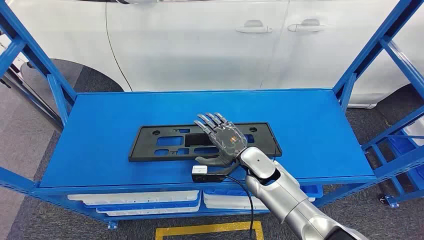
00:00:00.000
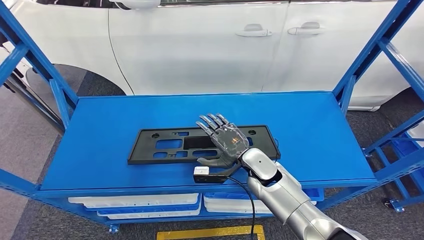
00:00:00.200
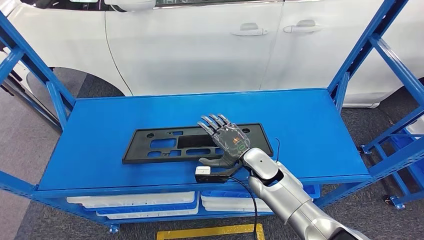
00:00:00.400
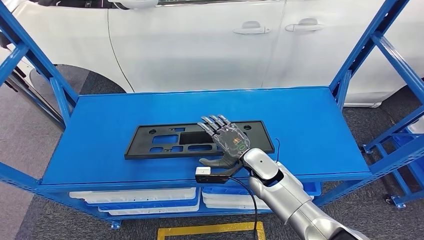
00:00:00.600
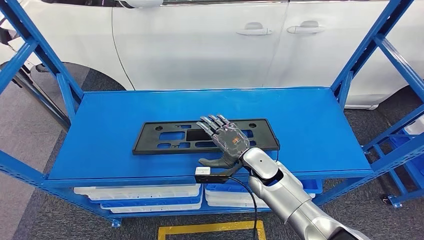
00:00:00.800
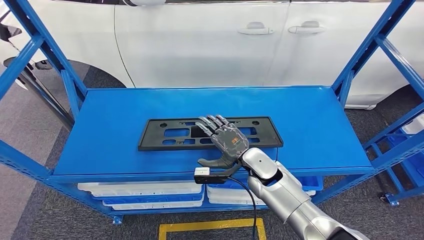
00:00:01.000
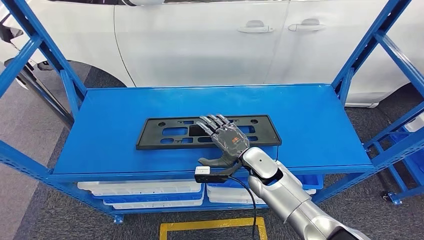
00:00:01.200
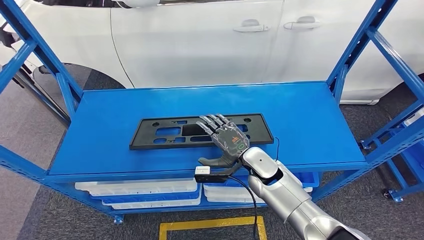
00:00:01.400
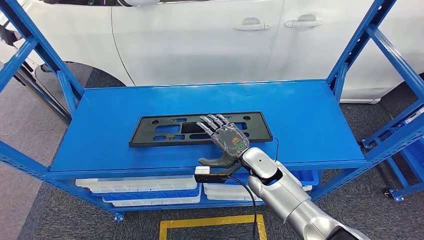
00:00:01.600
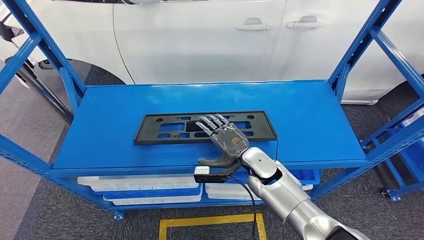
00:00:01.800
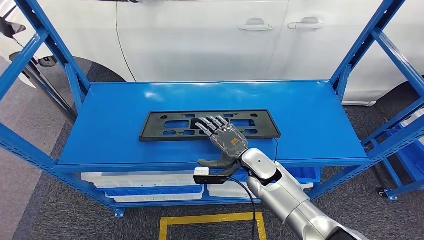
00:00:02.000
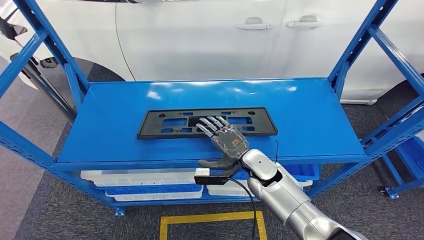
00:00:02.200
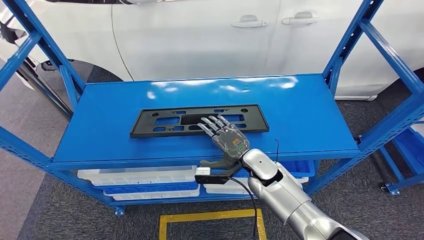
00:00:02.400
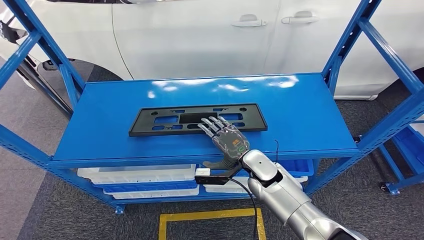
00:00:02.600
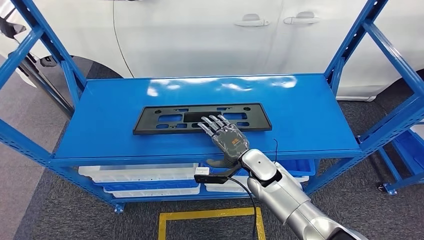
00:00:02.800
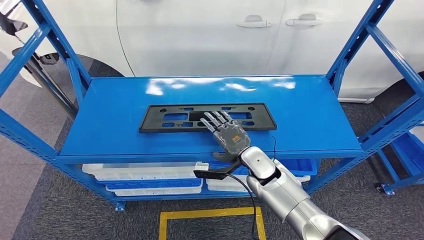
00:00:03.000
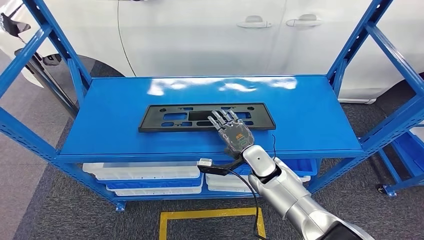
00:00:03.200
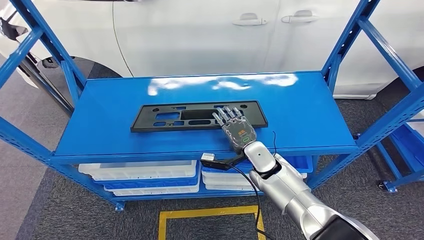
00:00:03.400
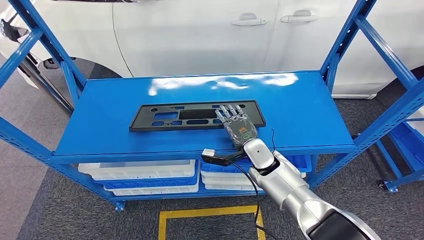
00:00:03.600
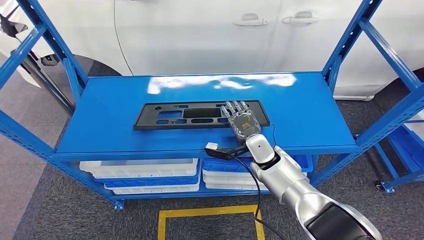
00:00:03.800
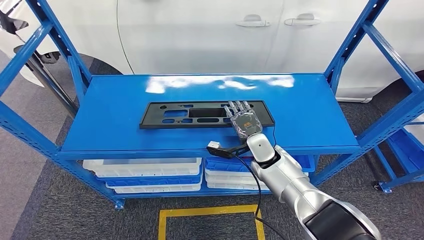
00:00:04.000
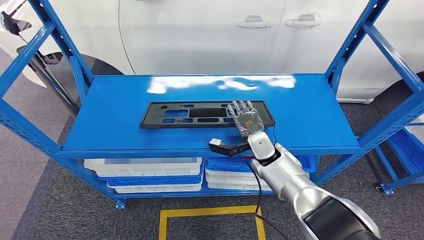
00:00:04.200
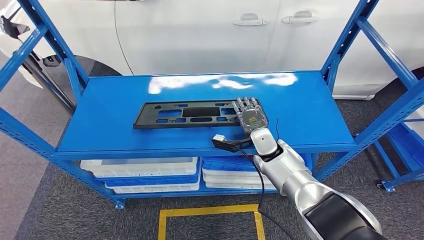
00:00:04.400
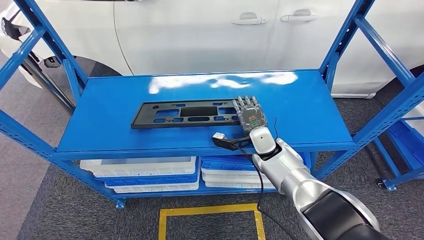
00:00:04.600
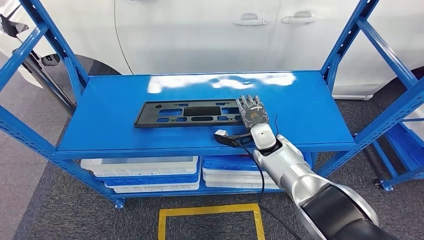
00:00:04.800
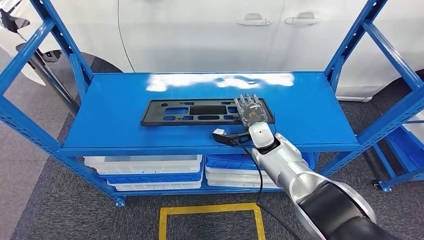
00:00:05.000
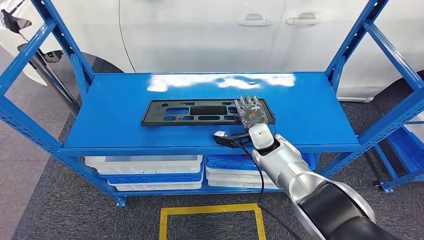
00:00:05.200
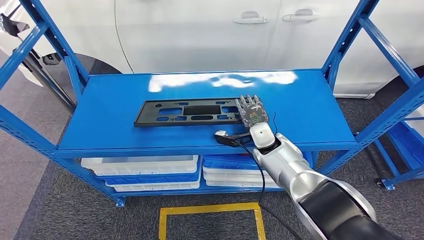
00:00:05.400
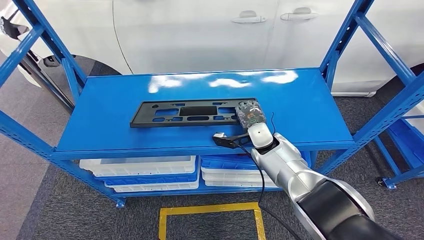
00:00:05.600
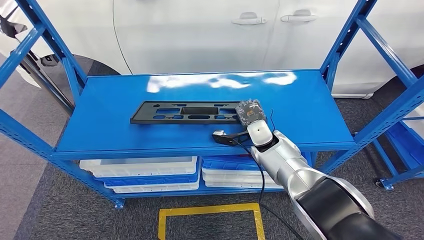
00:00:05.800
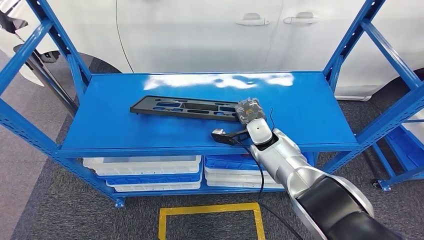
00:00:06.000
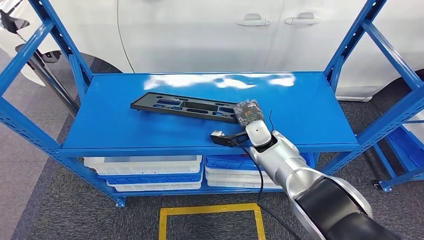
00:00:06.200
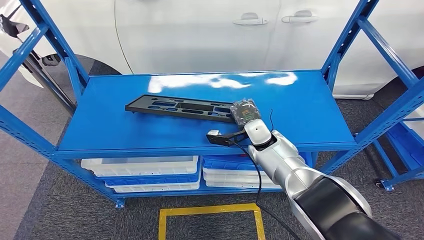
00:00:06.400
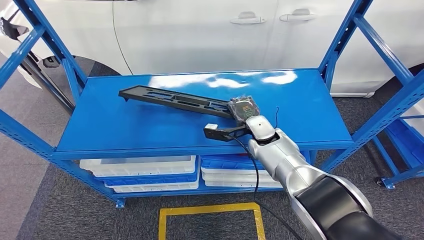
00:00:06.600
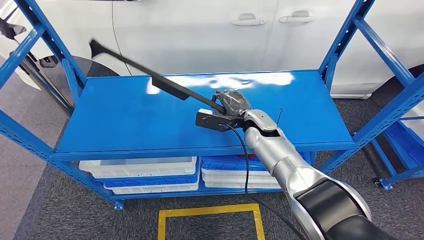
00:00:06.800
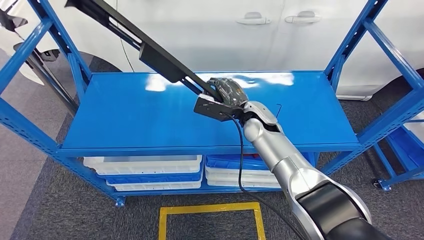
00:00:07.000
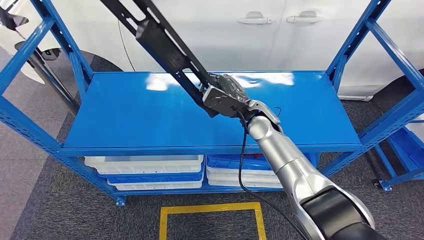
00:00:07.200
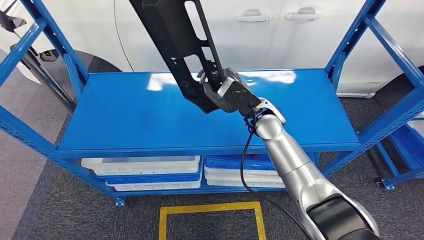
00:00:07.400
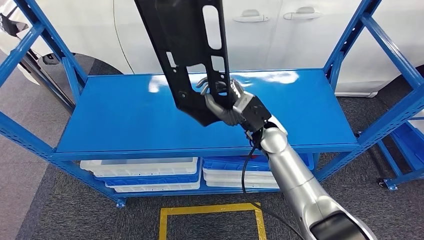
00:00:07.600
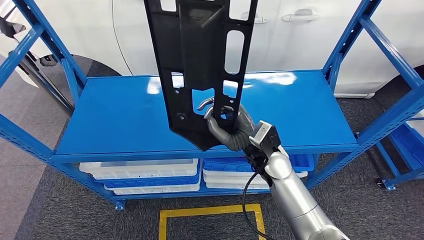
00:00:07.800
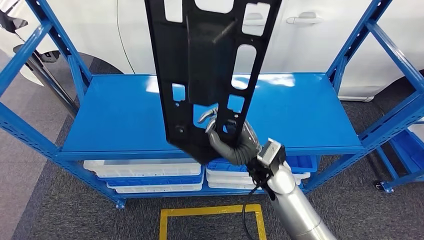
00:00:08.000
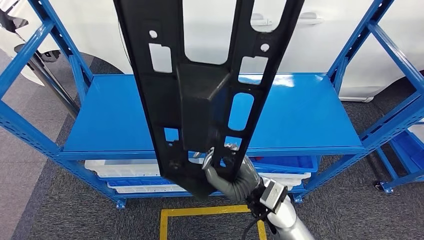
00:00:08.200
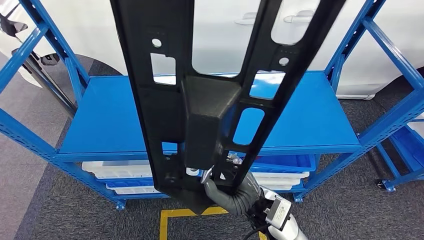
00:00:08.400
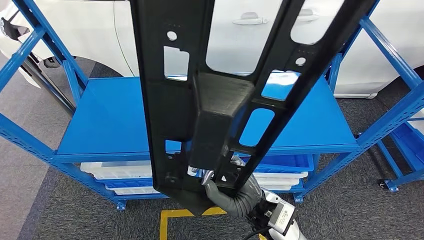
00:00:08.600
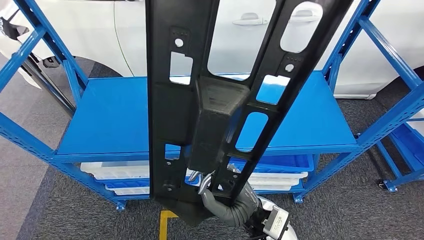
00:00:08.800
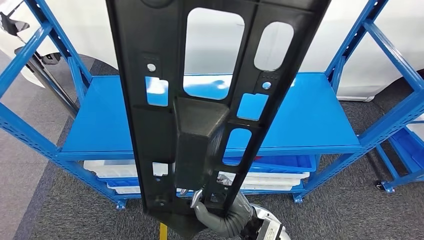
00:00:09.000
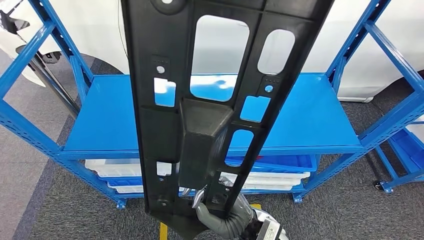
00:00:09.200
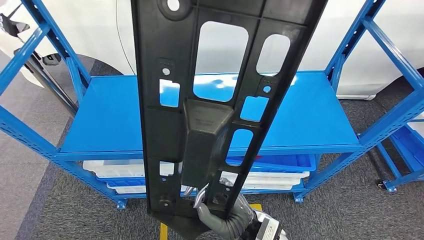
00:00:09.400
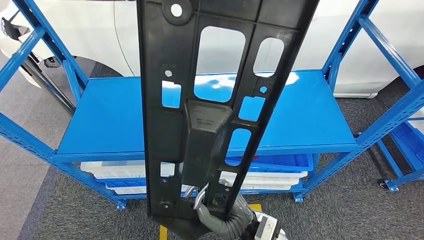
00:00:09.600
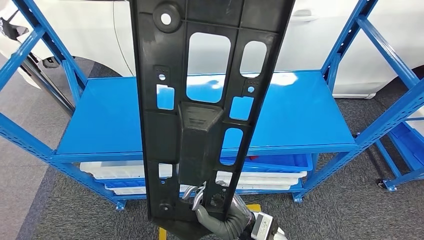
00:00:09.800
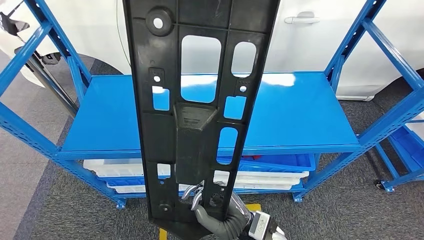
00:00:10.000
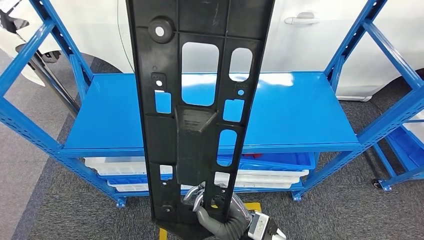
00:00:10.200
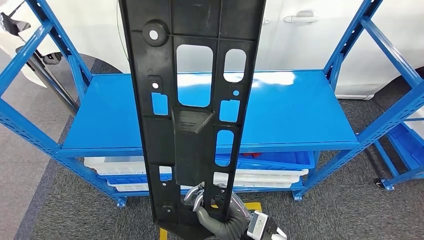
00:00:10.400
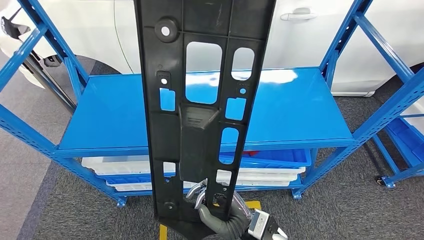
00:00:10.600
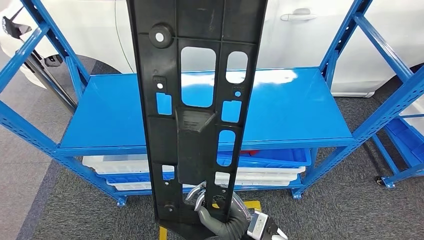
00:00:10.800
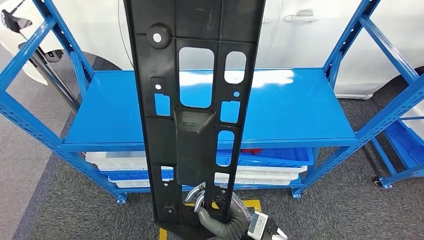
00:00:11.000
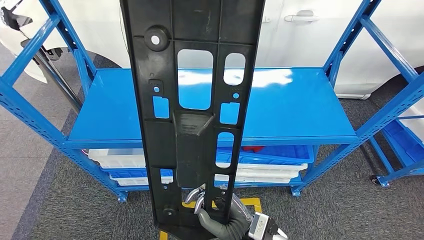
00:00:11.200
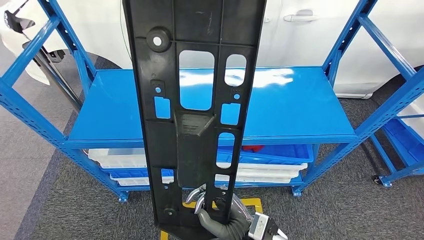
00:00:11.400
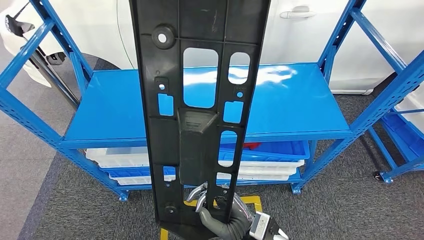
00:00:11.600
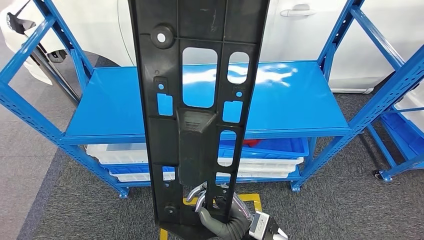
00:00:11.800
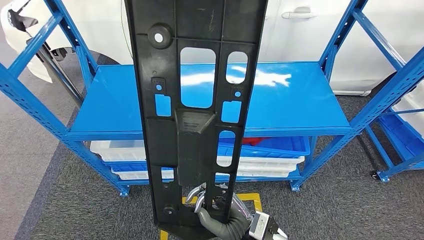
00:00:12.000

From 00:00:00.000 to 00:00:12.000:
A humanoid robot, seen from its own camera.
Step, from 00:00:00.000 to 00:00:07.800: Pick up the large parts from the shelf.

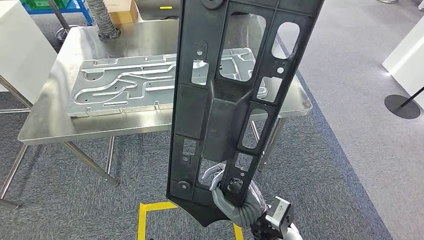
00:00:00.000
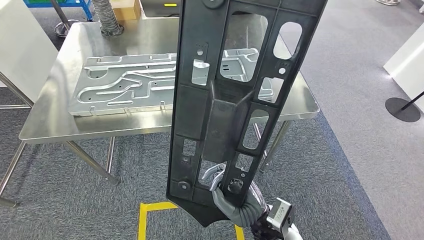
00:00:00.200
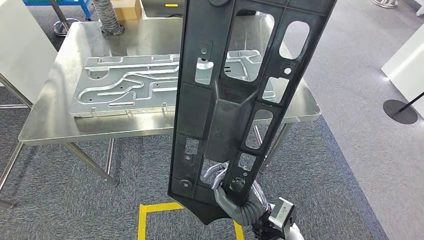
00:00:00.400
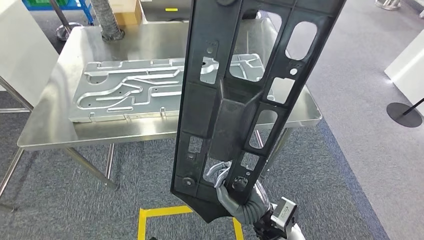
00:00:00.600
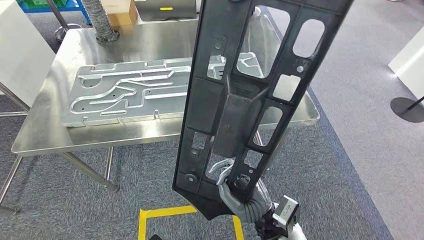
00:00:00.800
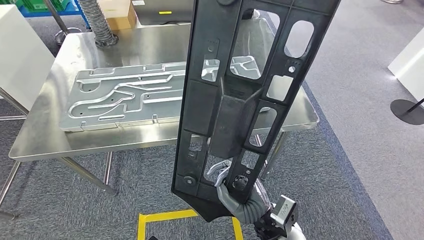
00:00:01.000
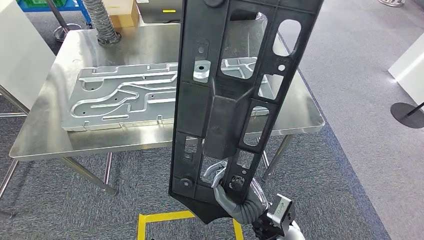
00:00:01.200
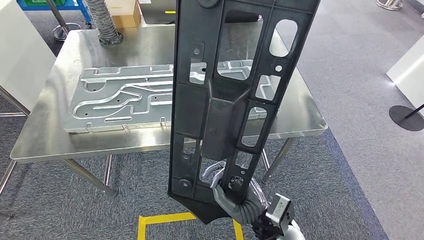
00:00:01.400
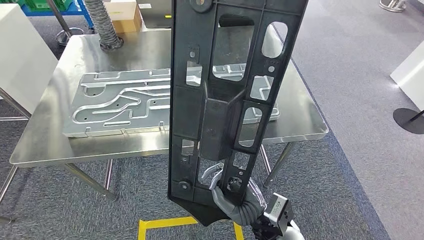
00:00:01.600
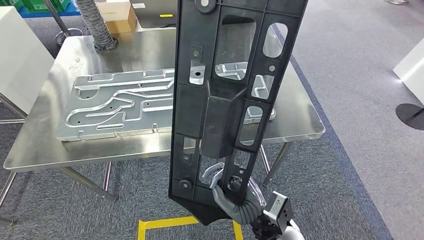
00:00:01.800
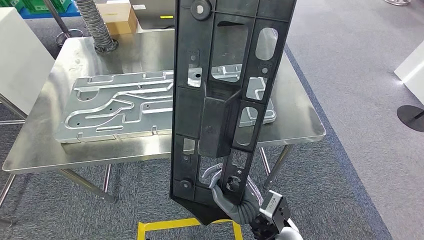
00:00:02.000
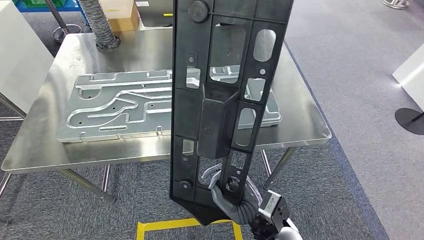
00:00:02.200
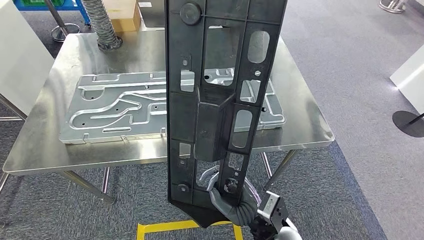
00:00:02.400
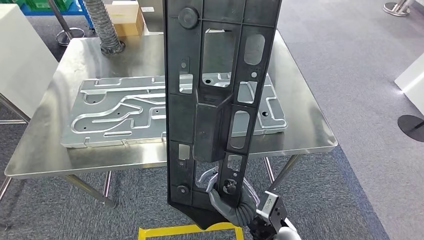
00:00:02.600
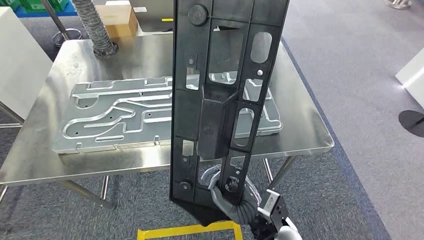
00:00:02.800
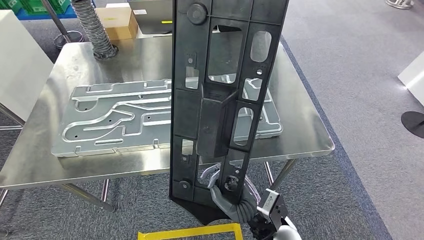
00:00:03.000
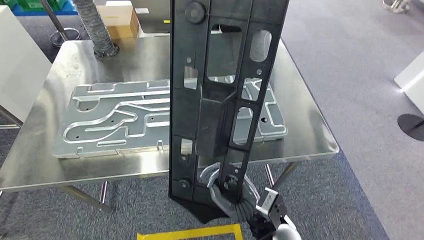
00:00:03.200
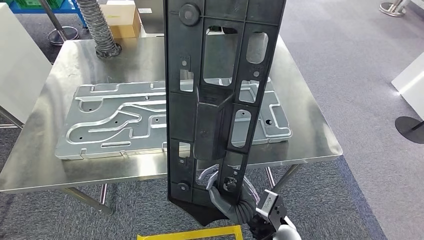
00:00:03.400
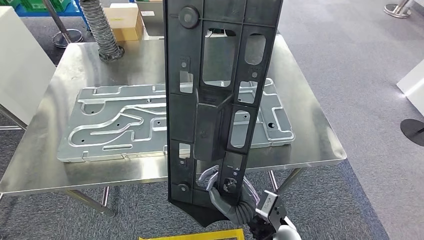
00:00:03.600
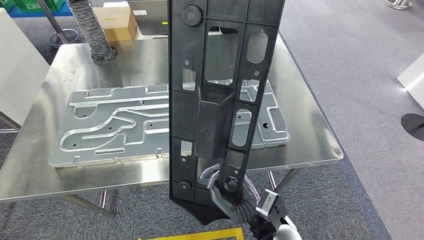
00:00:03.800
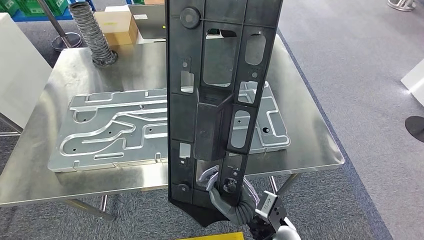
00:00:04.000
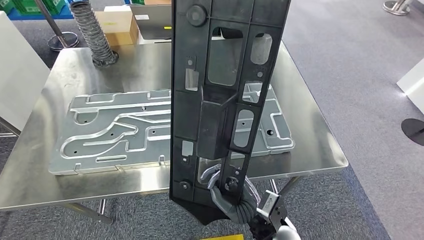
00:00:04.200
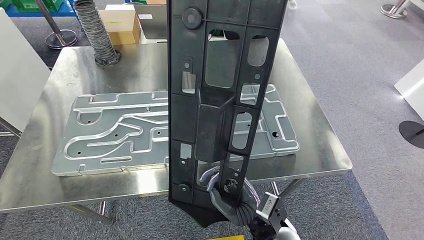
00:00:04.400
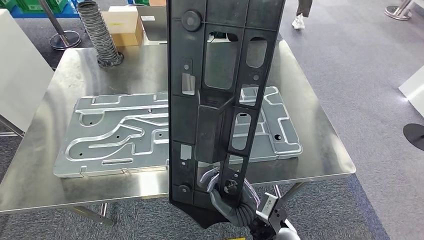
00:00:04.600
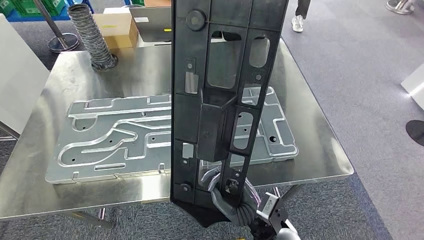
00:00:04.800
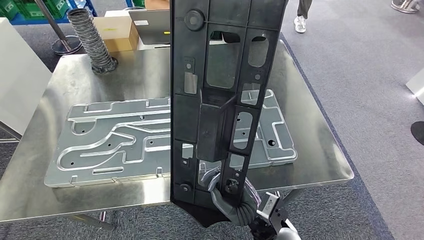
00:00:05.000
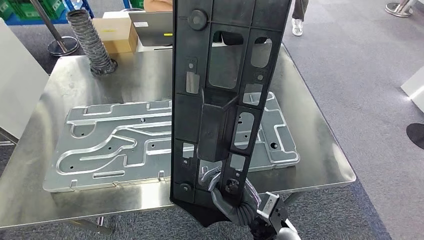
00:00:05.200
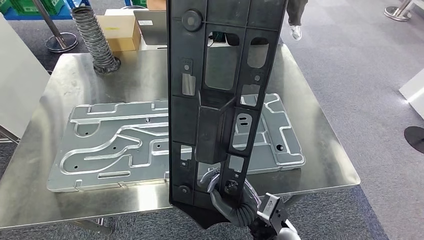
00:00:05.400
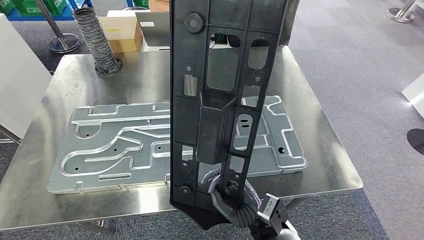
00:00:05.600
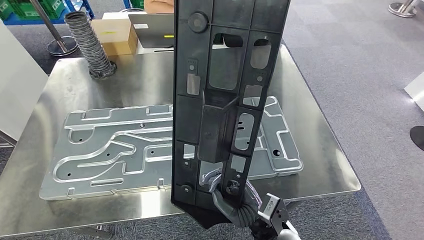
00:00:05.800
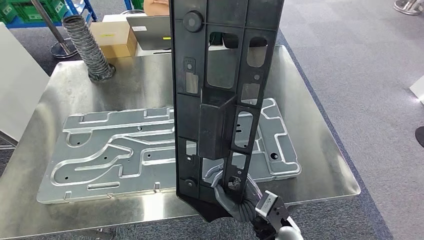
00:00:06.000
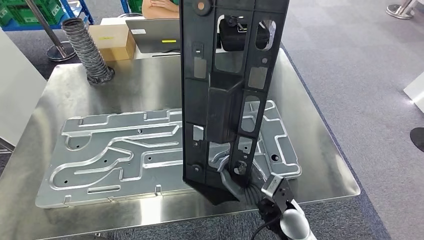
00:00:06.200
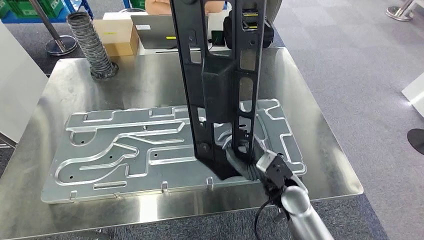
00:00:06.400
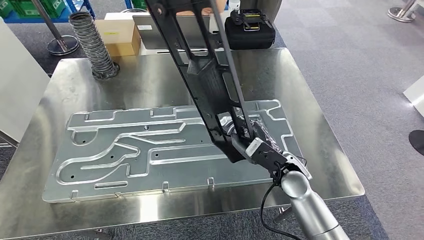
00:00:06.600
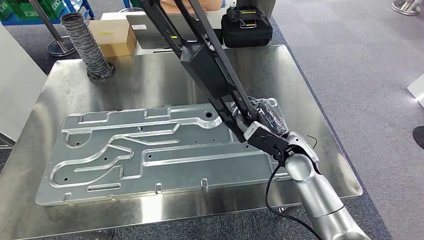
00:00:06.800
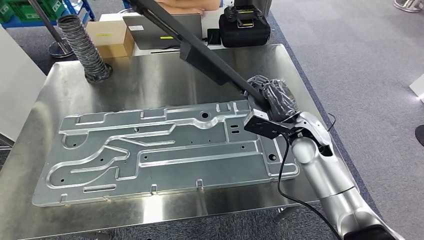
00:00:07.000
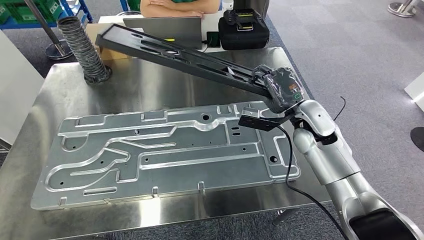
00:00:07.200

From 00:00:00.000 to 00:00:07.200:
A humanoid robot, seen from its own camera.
Step, from 00:00:00.000 to 00:00:02.600: Move the large parts to the workbench.
